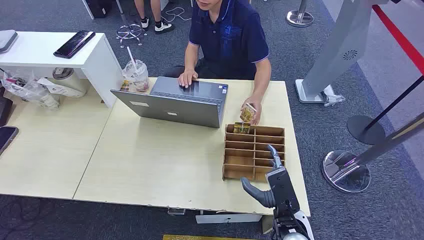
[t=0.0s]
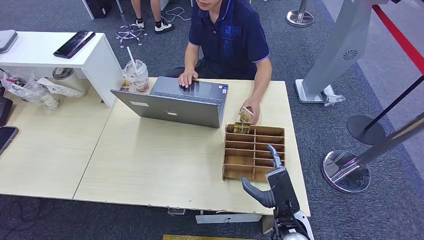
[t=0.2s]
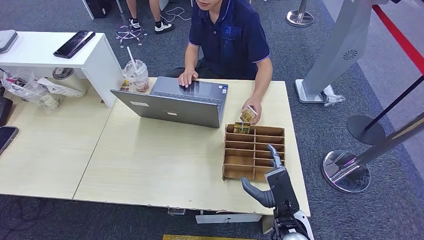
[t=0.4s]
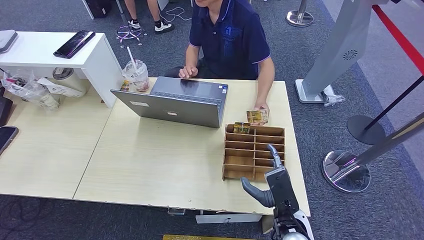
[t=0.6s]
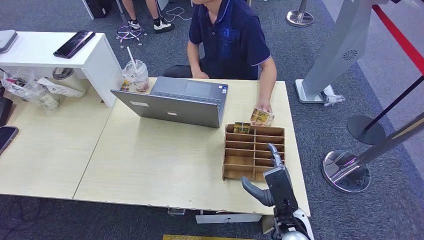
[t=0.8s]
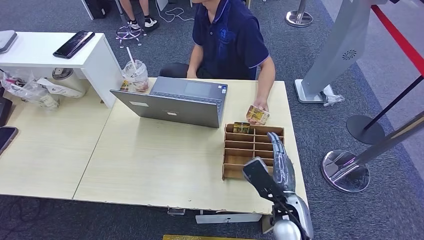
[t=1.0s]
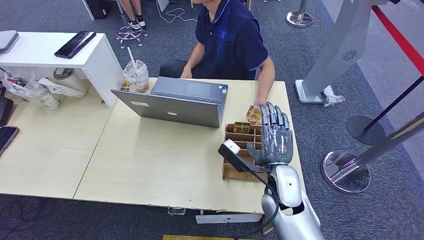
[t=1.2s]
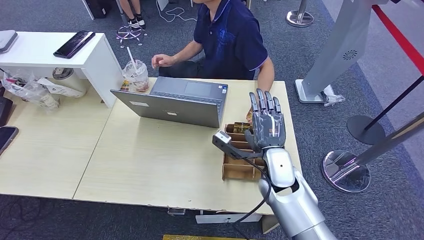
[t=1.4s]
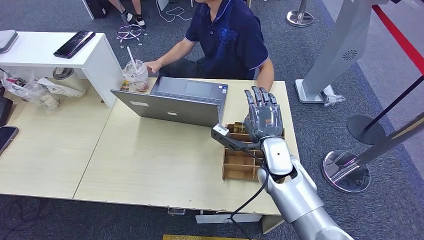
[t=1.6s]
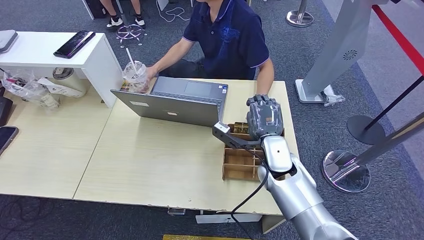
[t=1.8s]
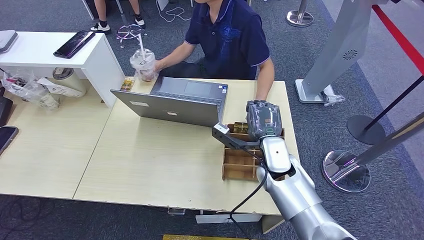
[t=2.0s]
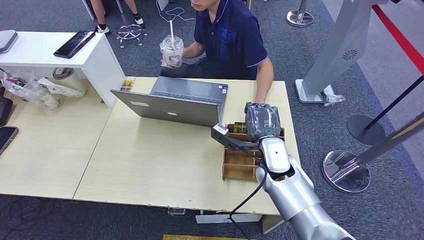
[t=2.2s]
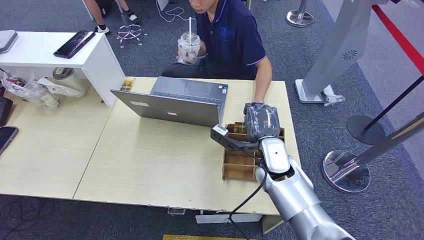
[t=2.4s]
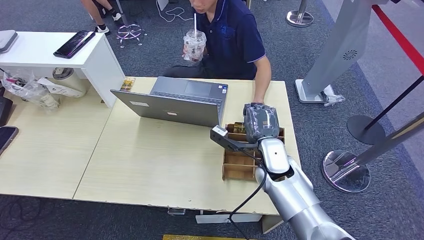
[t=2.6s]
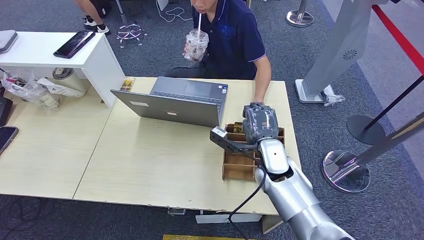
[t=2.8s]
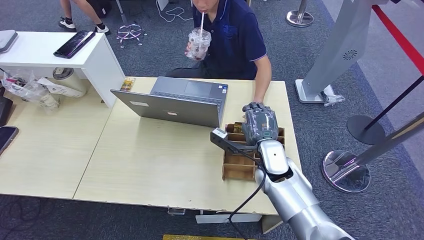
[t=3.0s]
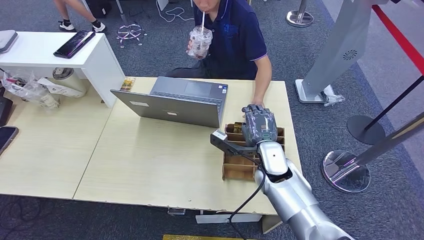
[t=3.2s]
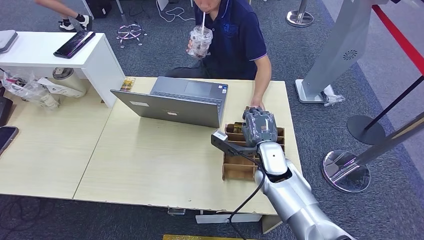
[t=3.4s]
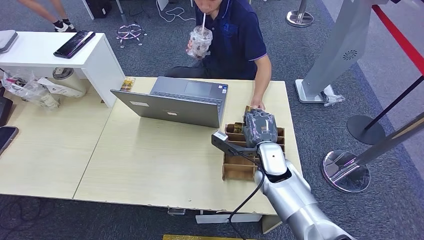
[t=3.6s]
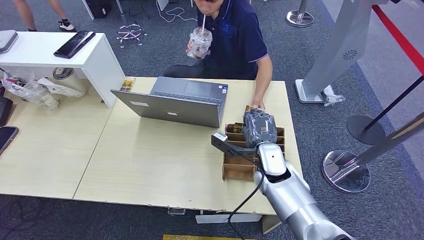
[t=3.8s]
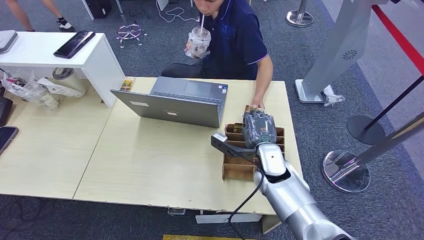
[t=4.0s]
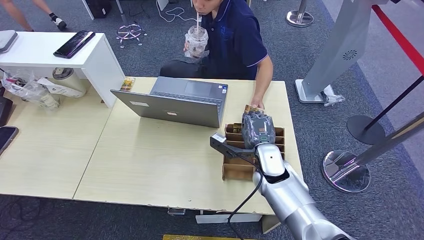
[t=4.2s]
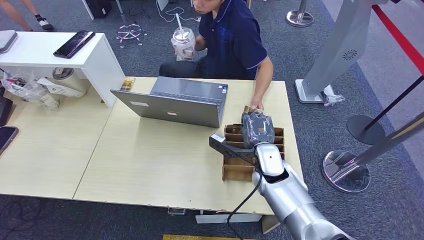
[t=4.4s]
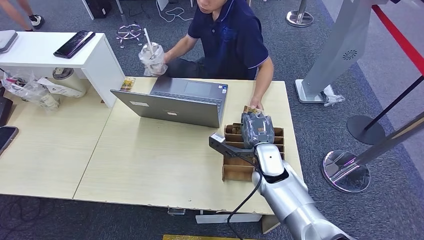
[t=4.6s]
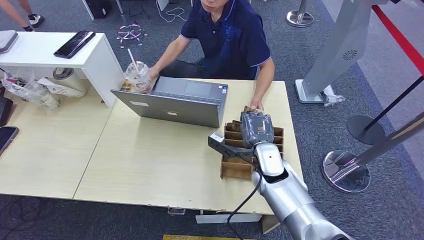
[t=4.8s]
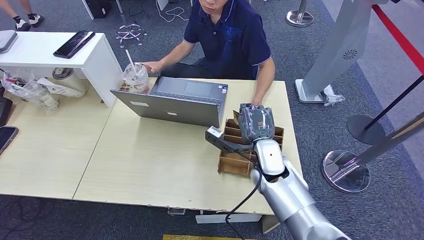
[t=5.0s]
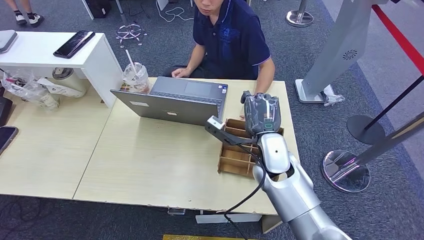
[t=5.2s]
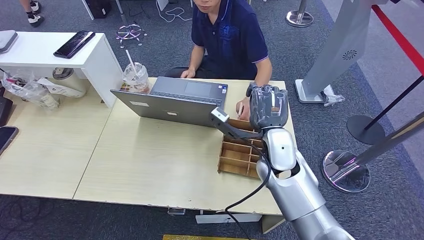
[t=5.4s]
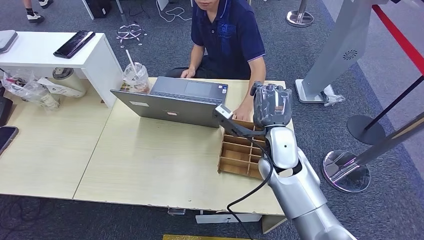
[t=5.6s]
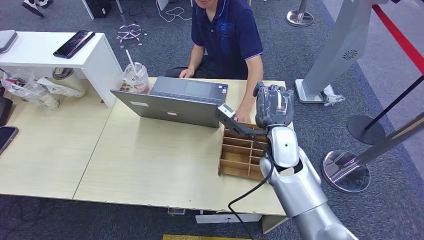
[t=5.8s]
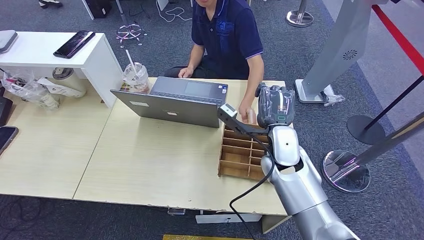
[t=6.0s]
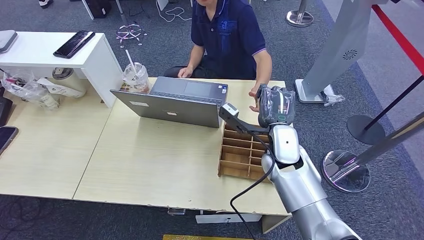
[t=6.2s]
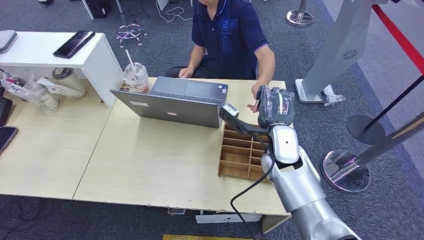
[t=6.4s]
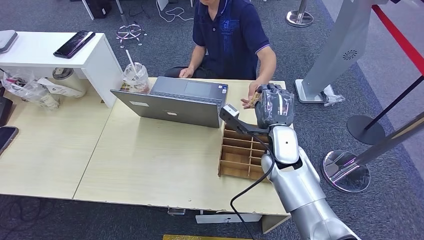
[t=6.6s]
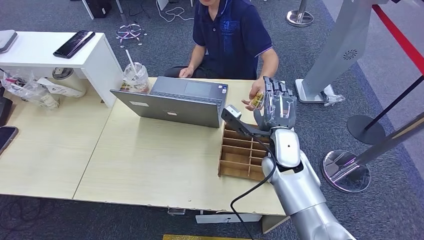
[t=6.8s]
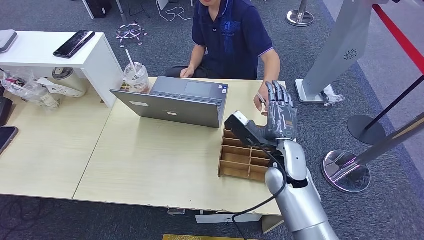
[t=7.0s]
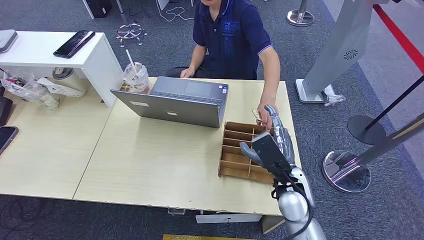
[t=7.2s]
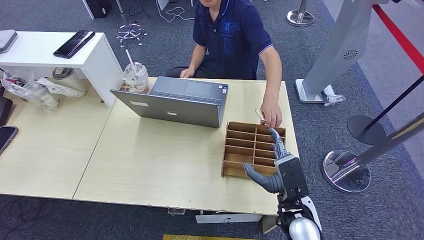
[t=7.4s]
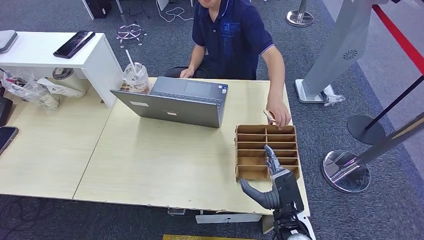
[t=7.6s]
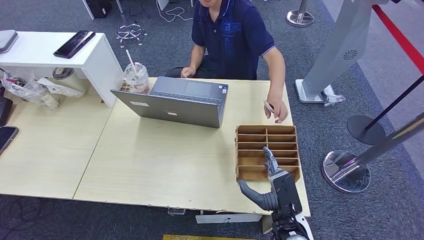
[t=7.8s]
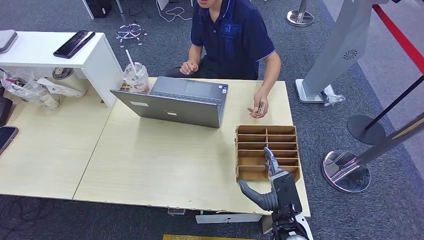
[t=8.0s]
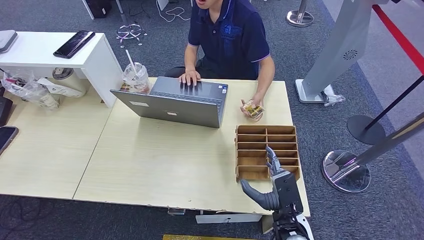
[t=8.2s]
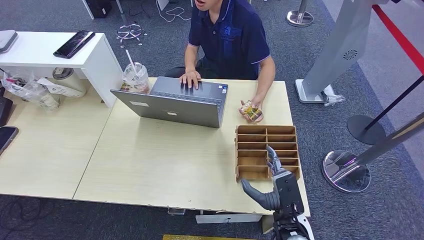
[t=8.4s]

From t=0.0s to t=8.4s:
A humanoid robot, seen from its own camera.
Step, from t=0.0s to t=5.8s: Pick up the room card from the card holder.
Step, from t=6.0s to t=8.4s: Hand the room card to the target.
From t=1.4s to t=4.2s: The hands move only a little.
From t=4.2s to t=5.6s: The right hand heads upward, covering approximately 10 cm.
From t=5.6s to t=7.0s: The hands stay close to where they were, moving slightly.
From t=7.0s to t=8.4s: The right hand travels backward and downward by some 15 cm.
